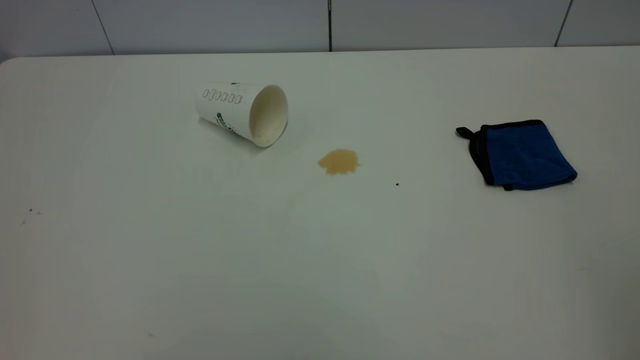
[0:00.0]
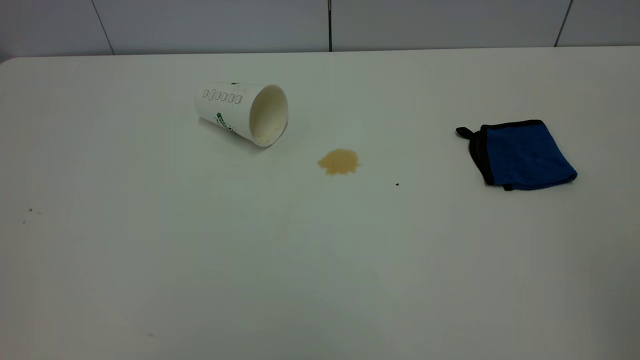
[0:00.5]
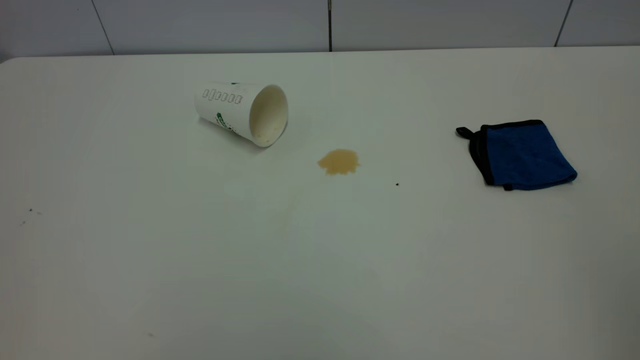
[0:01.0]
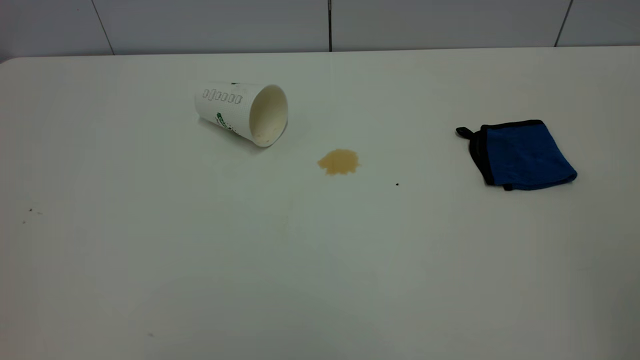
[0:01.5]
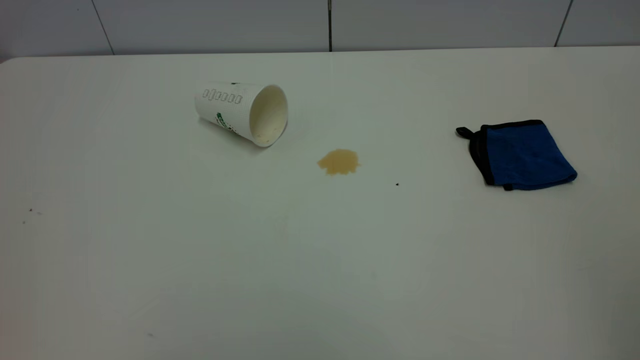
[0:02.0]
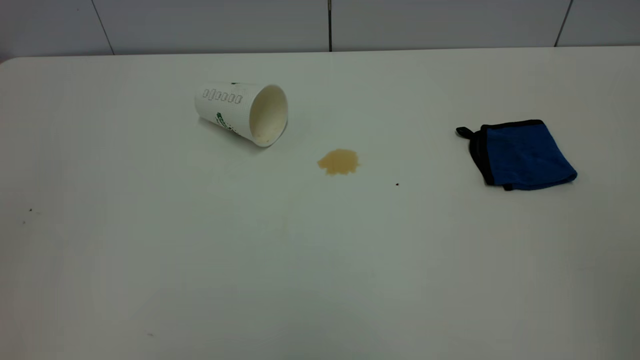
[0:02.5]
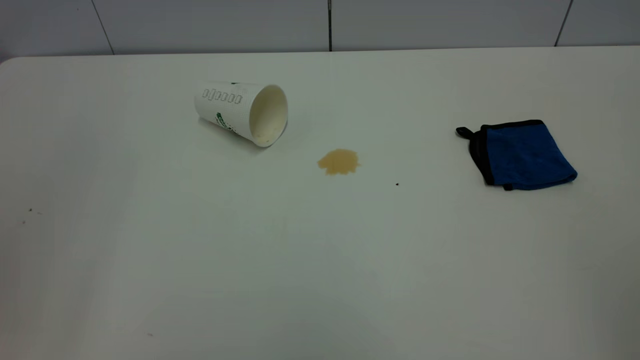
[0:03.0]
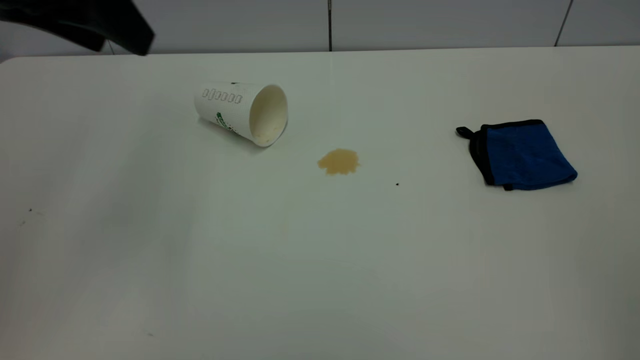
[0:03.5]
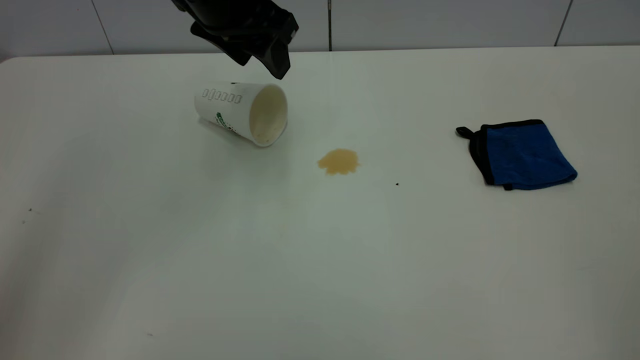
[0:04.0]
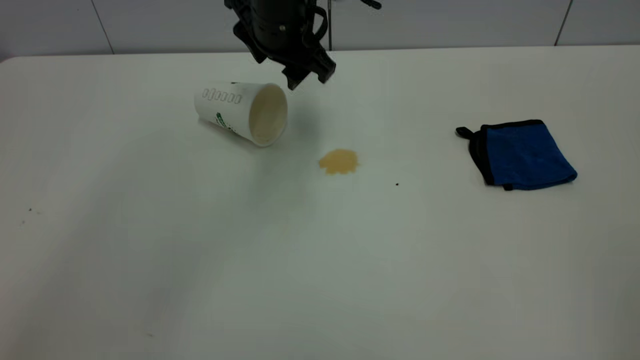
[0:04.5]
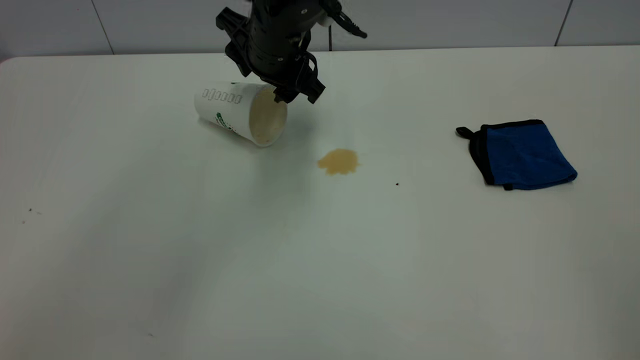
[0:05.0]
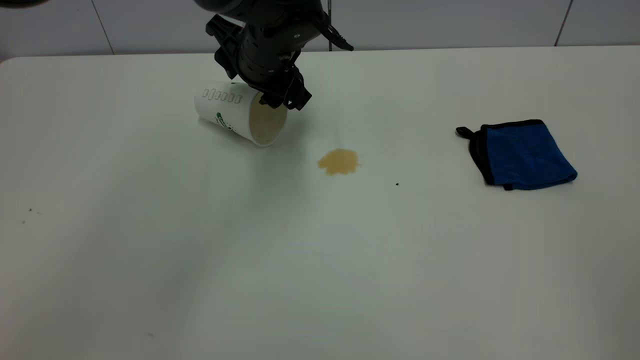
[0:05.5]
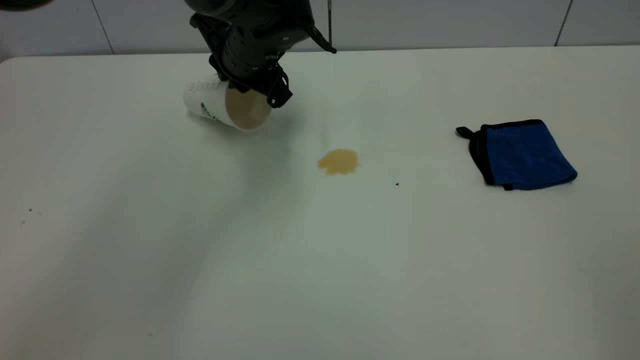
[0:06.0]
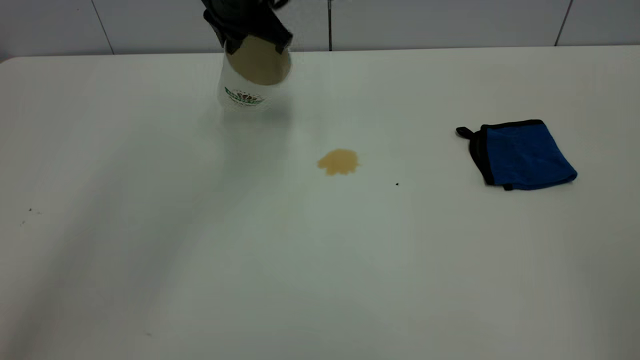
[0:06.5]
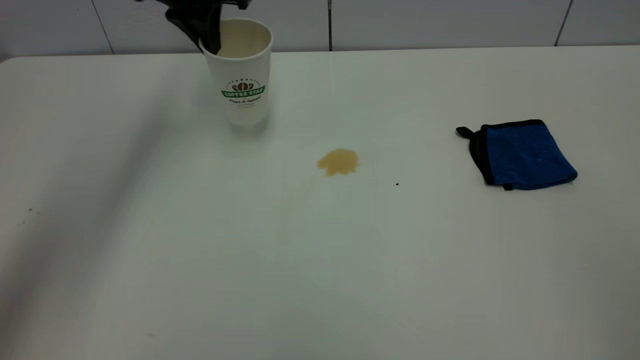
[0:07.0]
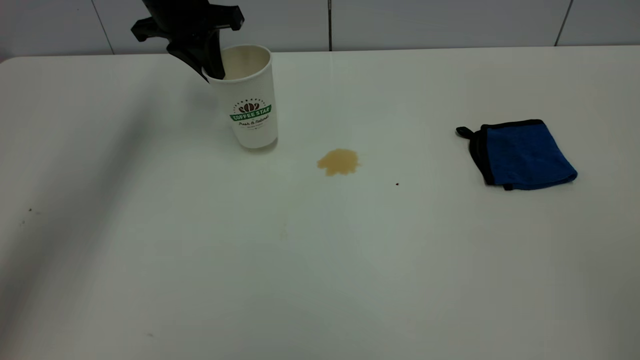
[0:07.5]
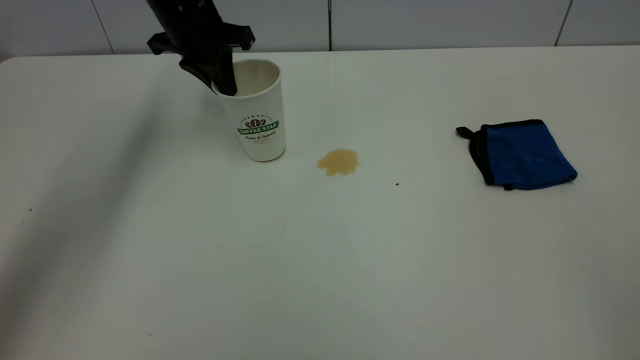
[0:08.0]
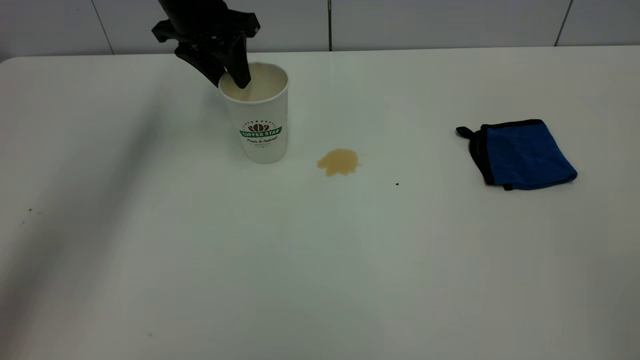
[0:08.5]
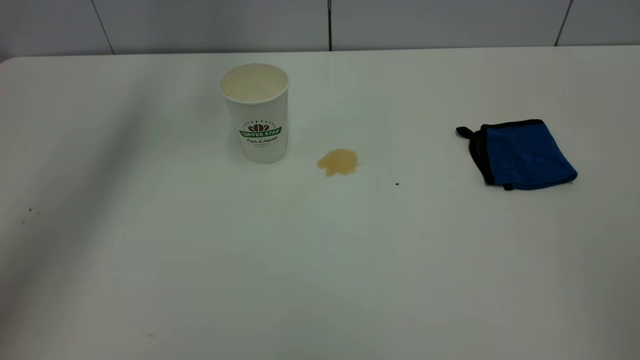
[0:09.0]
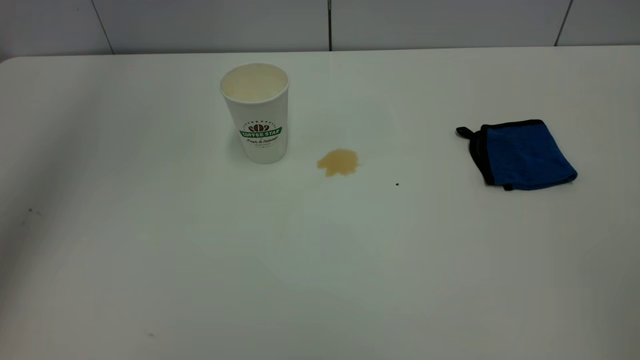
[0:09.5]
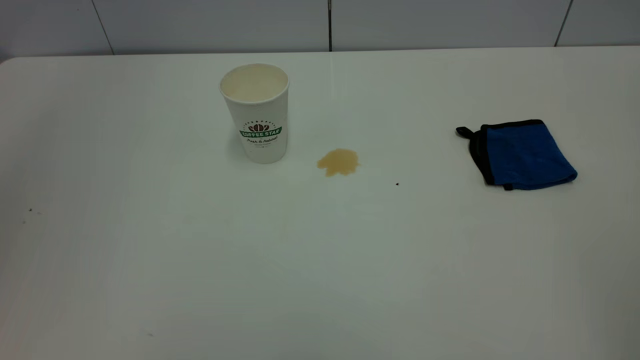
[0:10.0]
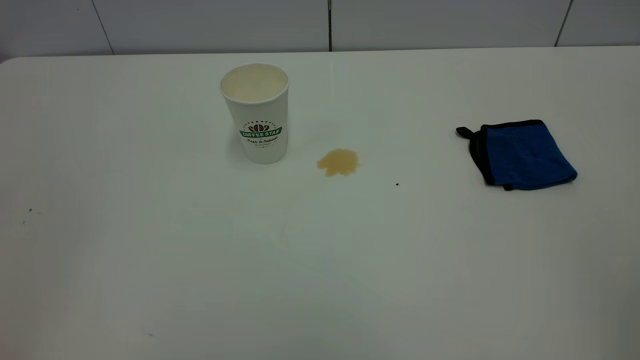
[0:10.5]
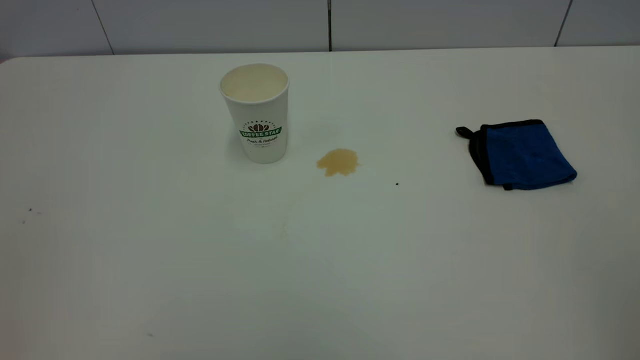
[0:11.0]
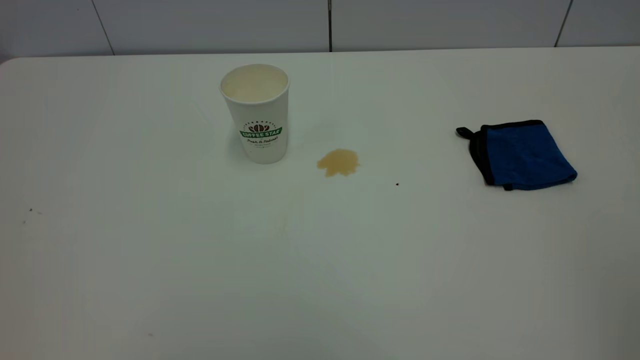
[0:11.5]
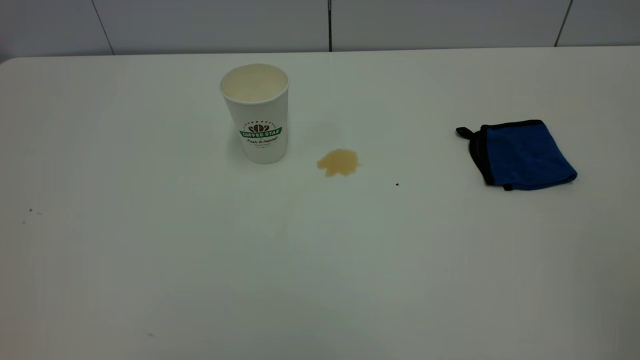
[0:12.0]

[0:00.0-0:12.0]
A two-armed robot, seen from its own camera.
Task of the whole recording: the left gripper pick up the fallen cup and place it upright, the right gripper grasp the blue rag and wipe the tea stain on the table, the right gripper put the blue rag back in its original position.
Step, 0:00.0 to 0:08.5: Stand the paper cup upright.
0:00.0 to 0:02.0: Both grippers stay put.
0:02.0 to 0:04.0: The left gripper heads forward and to the right, covering approximately 50 cm.
0:04.0 to 0:06.0: The left gripper travels downward by roughly 10 cm, and closes its fingers.
0:06.0 to 0:08.0: The left gripper shifts approximately 10 cm to the left.
0:08.0 to 0:10.0: The left gripper shifts some 40 cm upward and backward, and opens up.

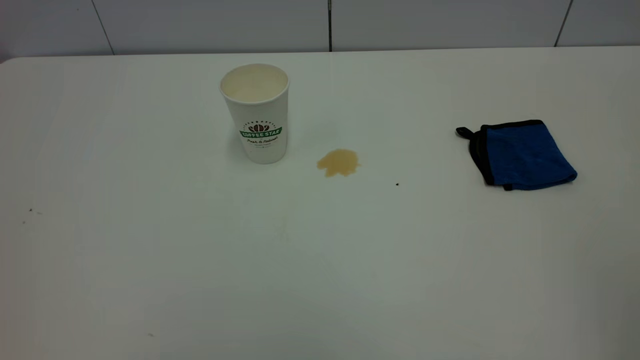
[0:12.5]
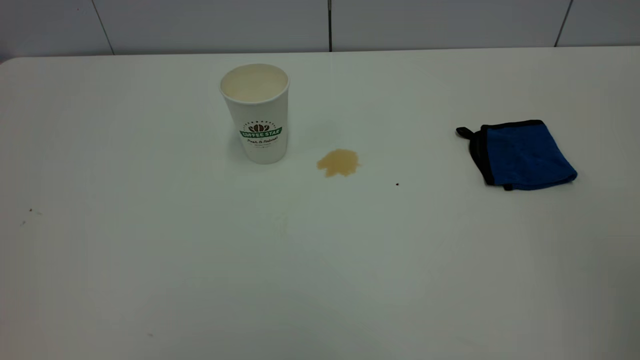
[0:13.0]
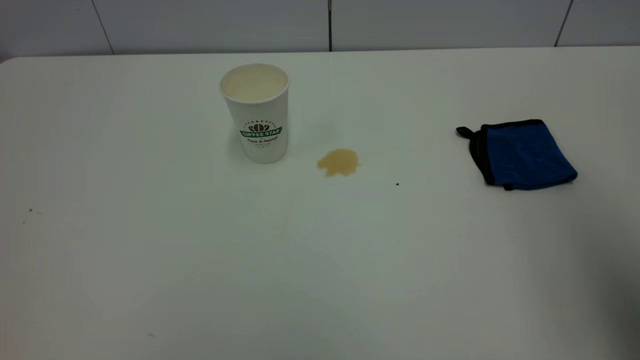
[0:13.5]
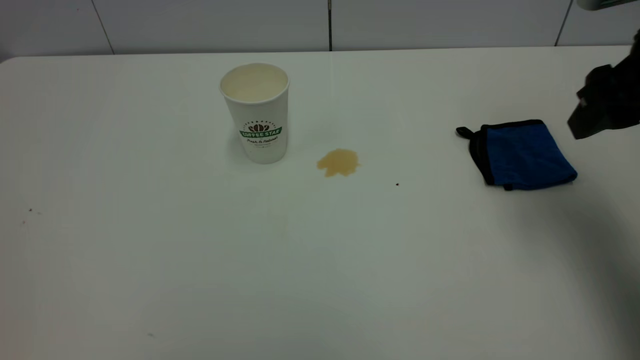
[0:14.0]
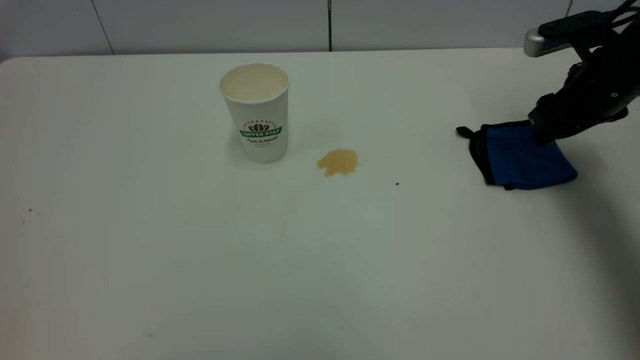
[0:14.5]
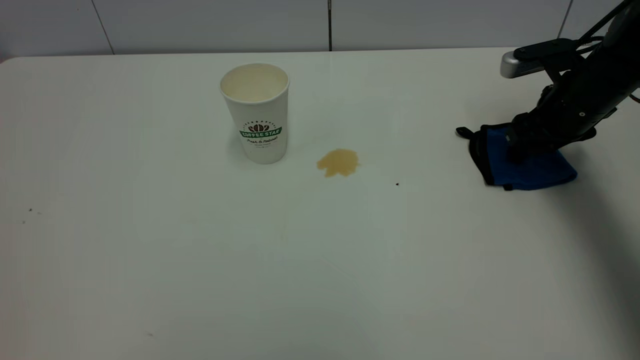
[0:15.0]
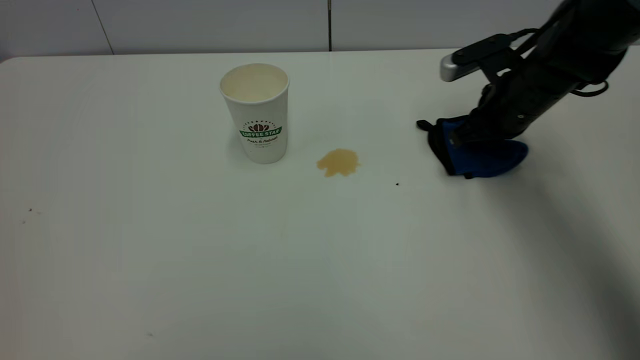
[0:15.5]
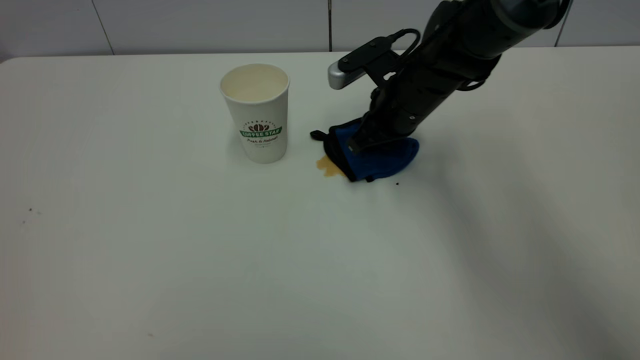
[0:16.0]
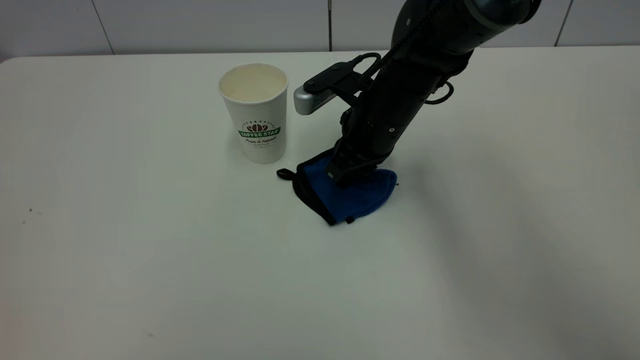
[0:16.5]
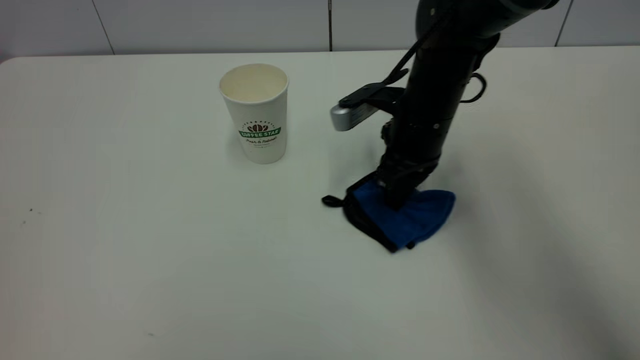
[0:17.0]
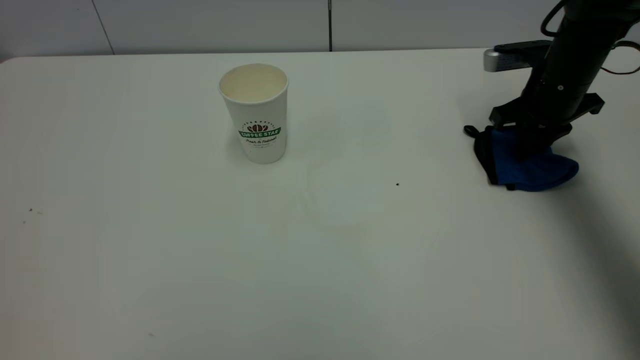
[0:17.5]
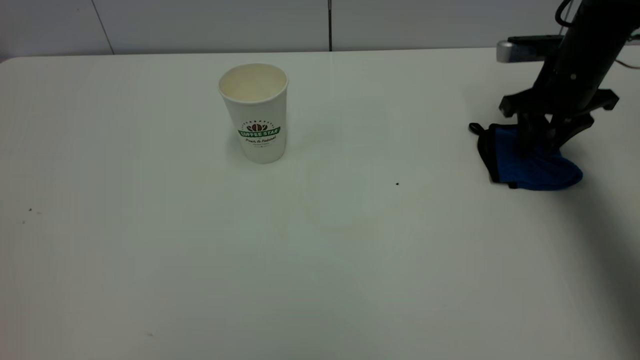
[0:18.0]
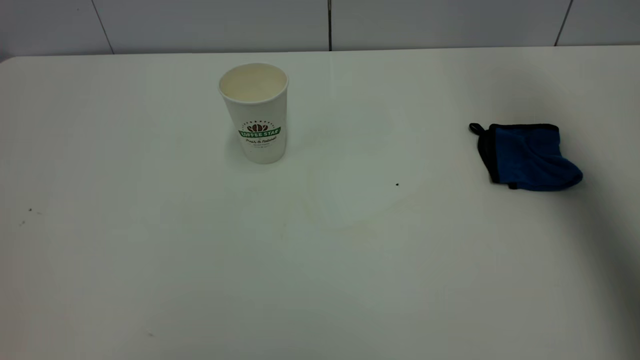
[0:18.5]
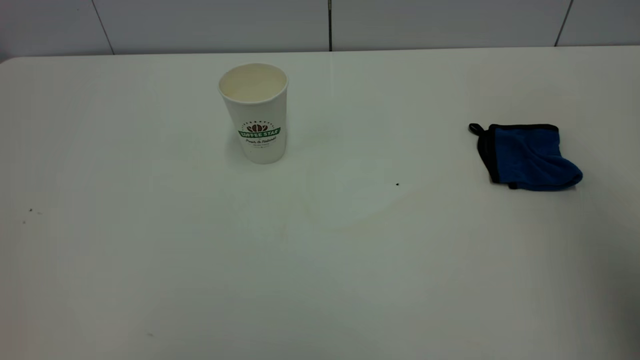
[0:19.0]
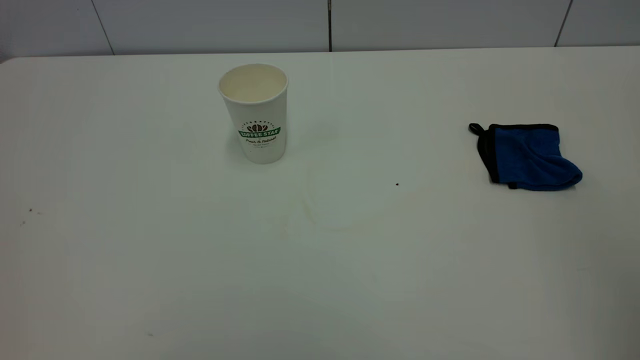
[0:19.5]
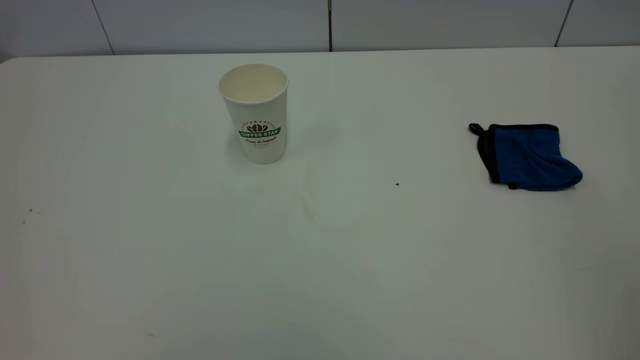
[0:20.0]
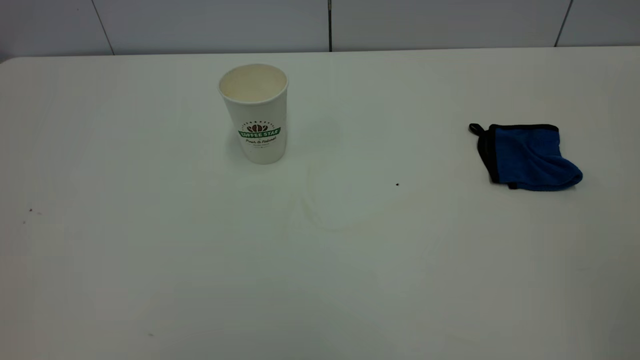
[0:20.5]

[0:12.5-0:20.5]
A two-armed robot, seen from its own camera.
Task of the whole recording: the left gripper pick up the fallen cup and place it upright, the right gripper grasp the blue rag and wipe the tea stain on the table, the right gripper put the blue rag back in its original position.
Step, 0:12.5 to 0:18.0: Wipe the stains off the table with a rag.
0:12.5 to 0:14.5: The right gripper goes roughly 50 cm forward and downward, and opens up.
0:14.5 to 0:16.5: The right gripper goes approximately 25 cm to the left, and closes.
0:16.5 to 0:18.5: The right gripper moves upward and to the right, approximately 35 cm, and opens up.
0:18.5 to 0:20.5: The right gripper is displaced backward by roughly 40 cm.
